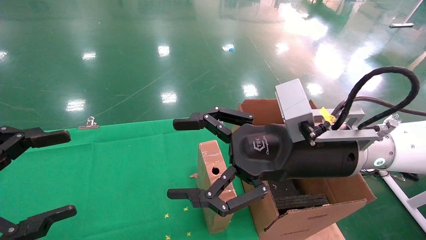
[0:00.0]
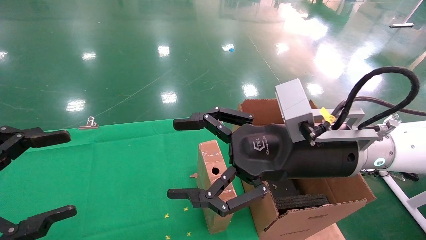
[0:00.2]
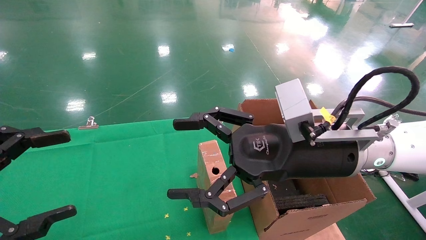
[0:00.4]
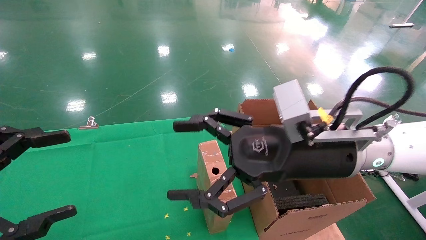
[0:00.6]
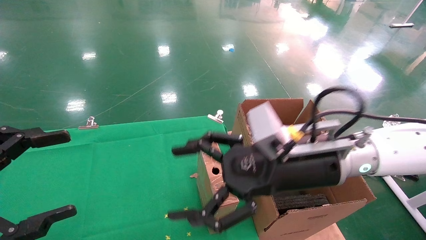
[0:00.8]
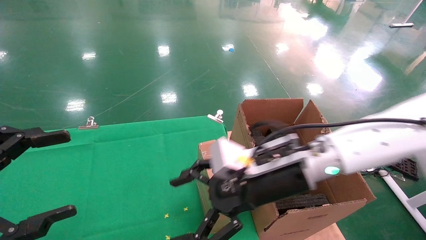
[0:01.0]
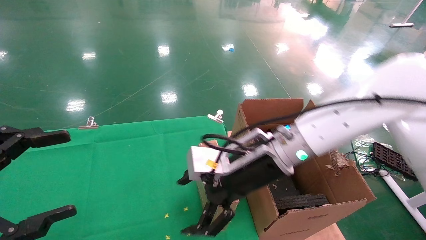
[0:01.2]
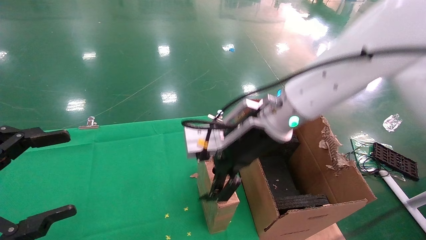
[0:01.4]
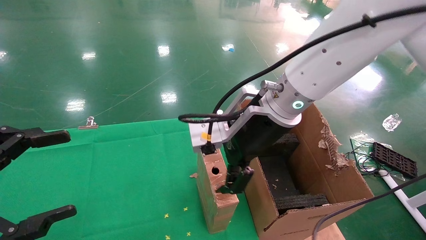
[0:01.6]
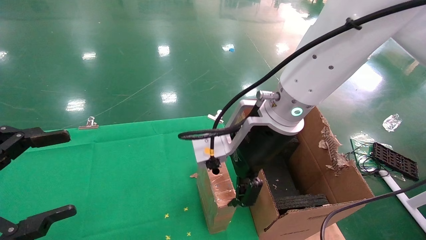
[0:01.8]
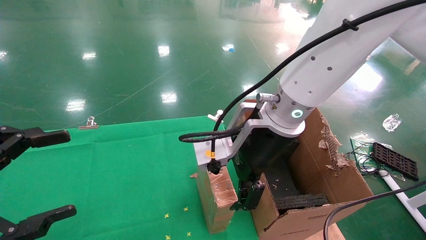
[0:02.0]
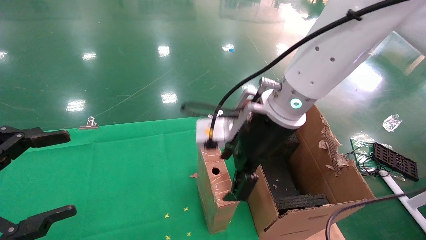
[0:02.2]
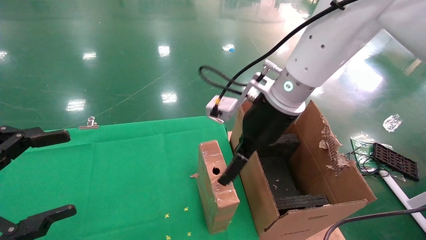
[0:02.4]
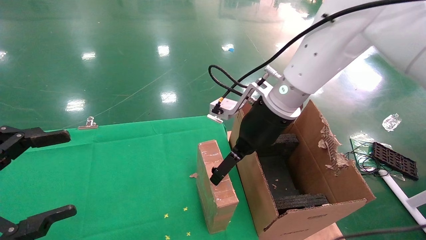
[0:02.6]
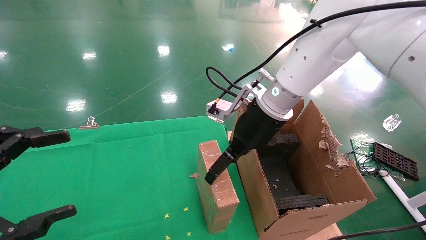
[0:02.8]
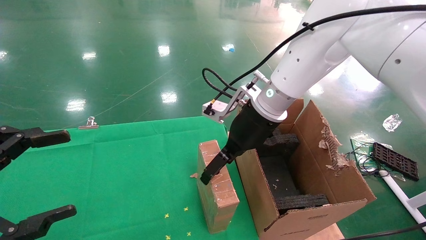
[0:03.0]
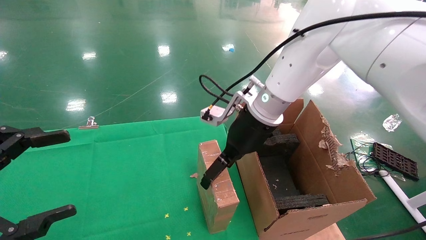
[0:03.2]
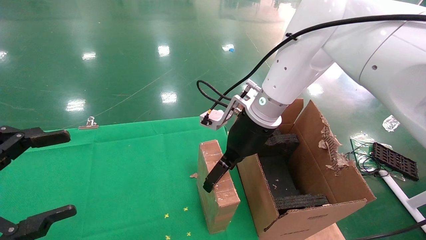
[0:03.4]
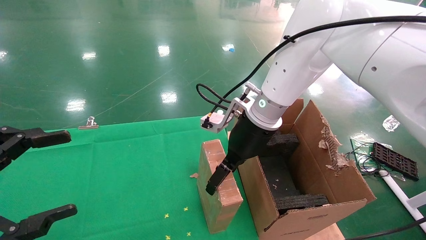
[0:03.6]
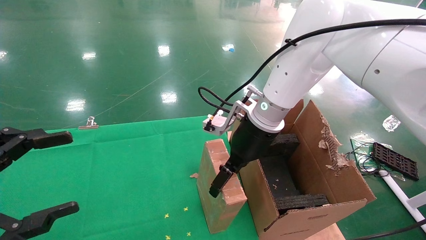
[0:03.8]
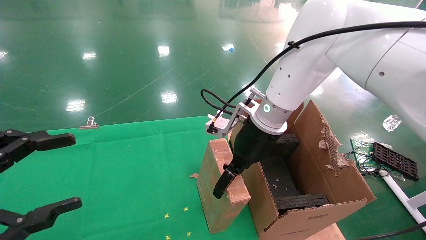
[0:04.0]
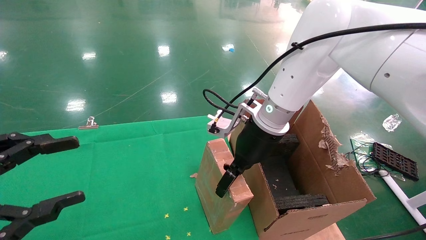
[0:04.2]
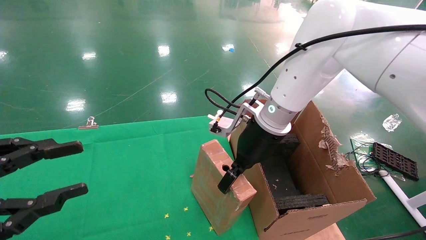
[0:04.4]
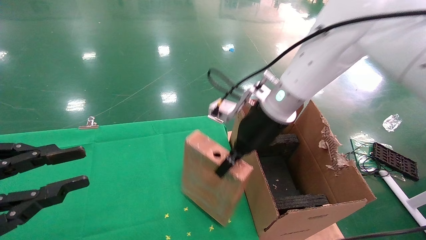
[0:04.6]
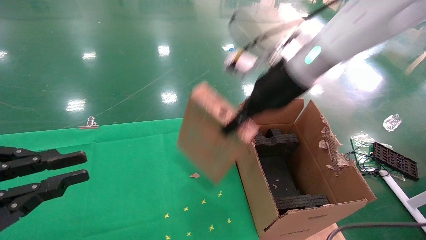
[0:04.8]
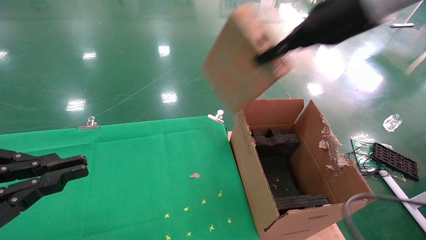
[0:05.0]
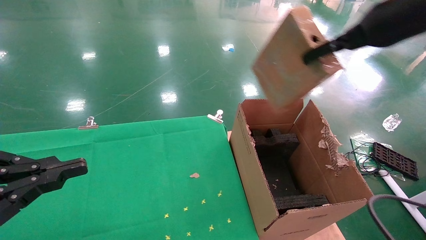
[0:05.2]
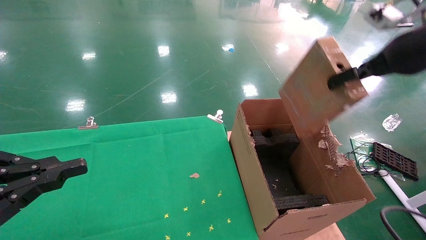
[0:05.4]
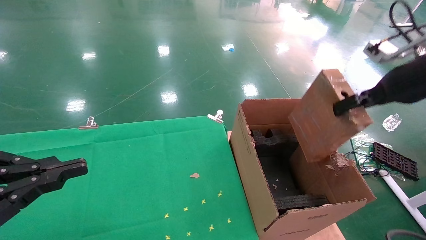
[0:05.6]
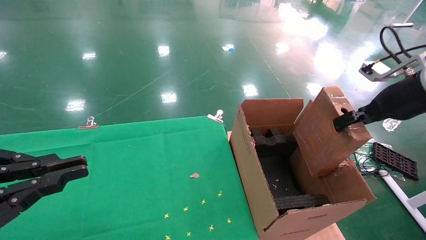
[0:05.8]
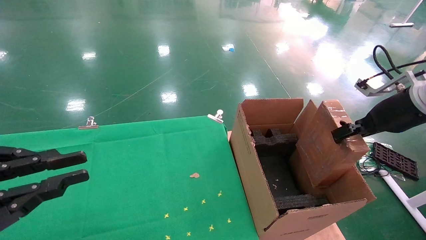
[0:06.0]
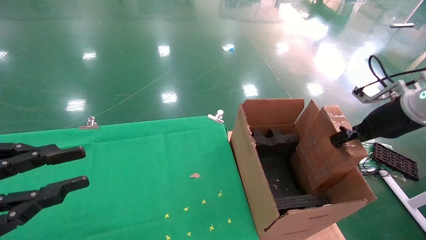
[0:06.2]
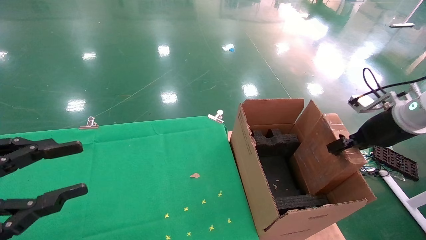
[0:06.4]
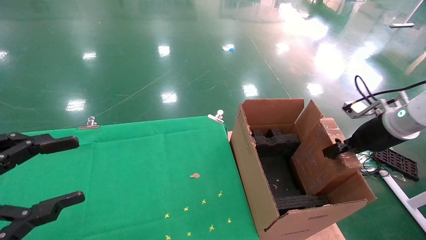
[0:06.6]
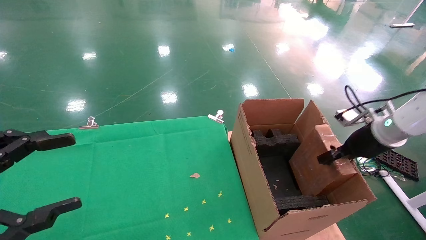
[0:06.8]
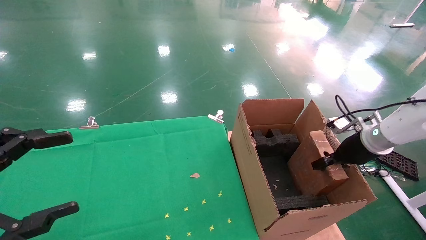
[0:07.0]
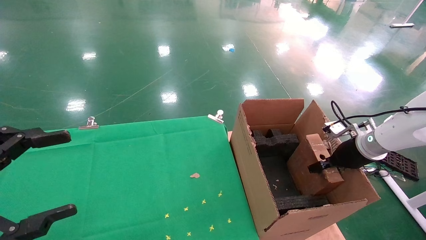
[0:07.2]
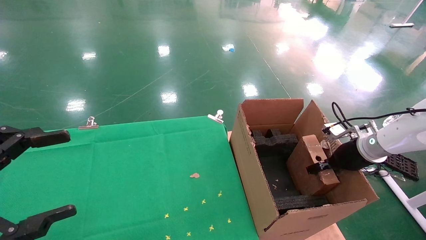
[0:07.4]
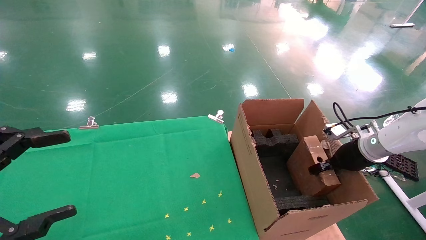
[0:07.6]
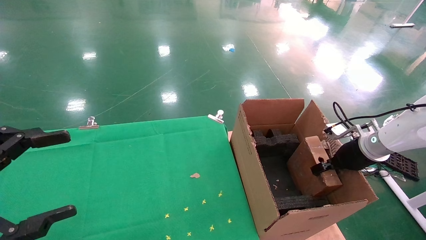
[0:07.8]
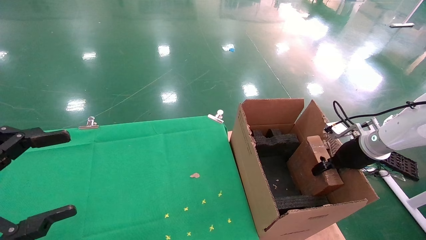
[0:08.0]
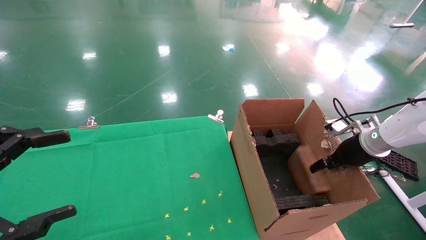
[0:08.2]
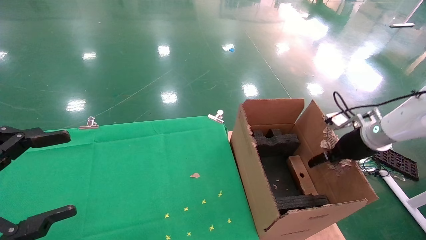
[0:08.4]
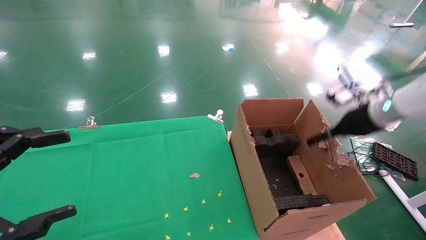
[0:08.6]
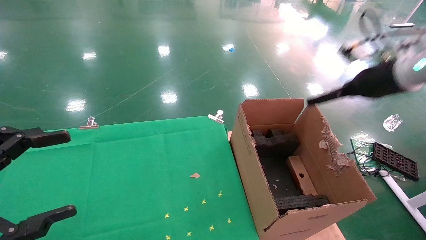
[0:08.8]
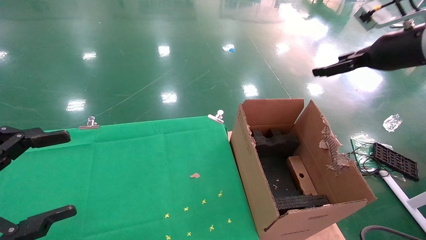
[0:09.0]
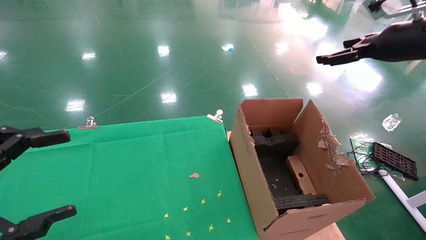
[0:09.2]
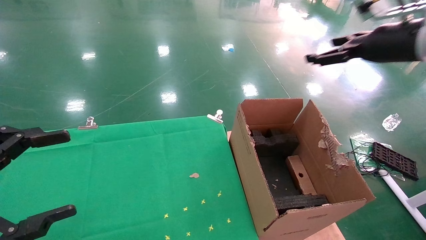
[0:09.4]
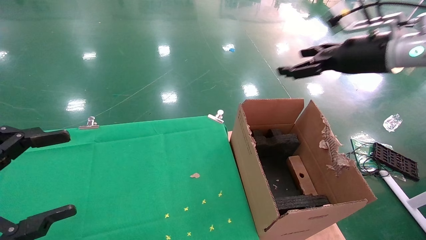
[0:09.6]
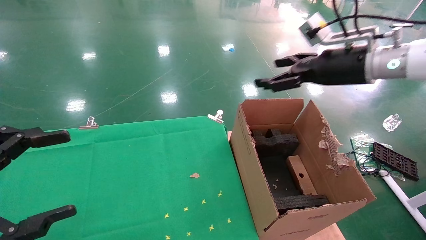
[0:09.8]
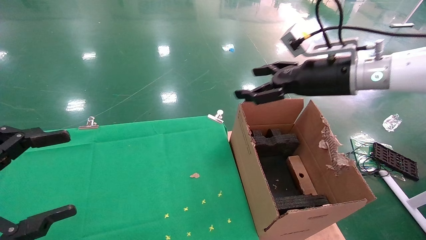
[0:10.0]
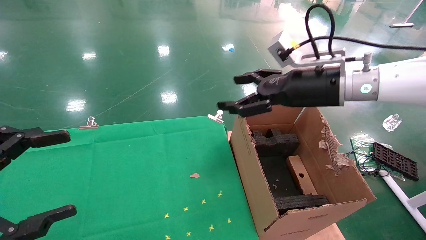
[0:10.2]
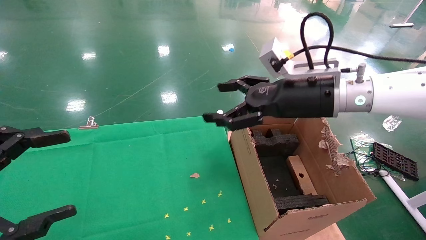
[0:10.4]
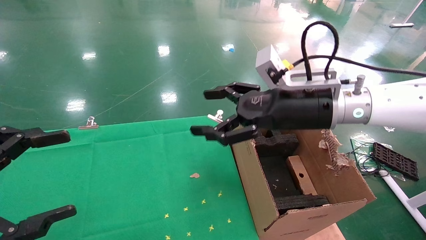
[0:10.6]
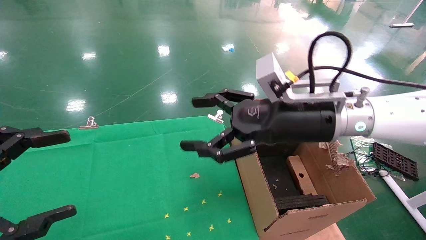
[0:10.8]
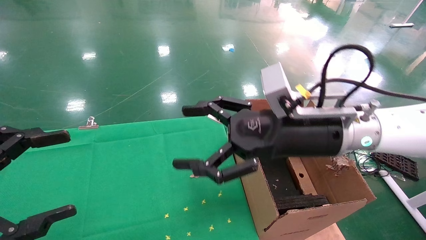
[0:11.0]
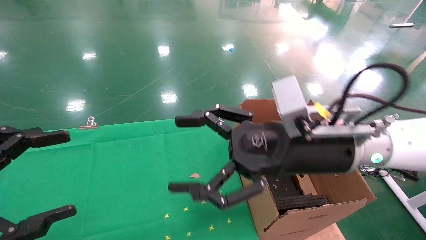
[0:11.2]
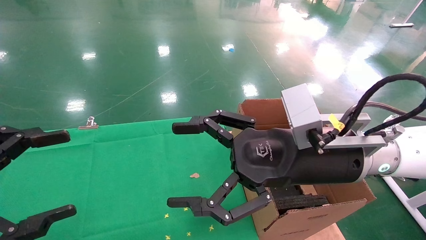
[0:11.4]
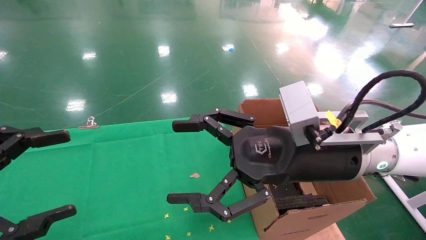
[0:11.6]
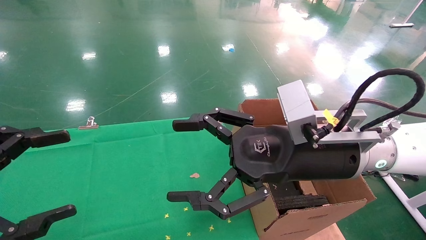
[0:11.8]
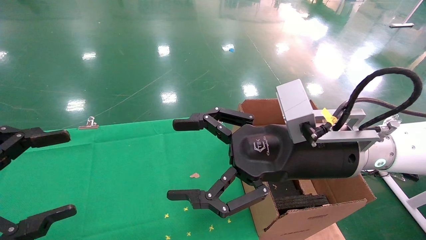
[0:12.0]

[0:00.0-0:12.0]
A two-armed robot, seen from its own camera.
Task of the whole recording: using a robotic arm to pick up a cardboard box and palace it the carton.
Step, 0:00.8 to 0:04.4: Pick up the mouse and the power cord paper box.
Step, 0:04.6 to 0:08.4: Place the mouse and the power cord paper box into the container.
0:00.0 to 0:01.6: The right gripper goes some 10 cm to the left and forward.
0:01.6 to 0:03.0: The right gripper moves forward, about 5 cm.
0:03.0 to 0:04.4: The left gripper closes up; the right gripper closes up.
0:04.4 to 0:06.0: The right gripper goes roughly 30 cm to the right, and closes up, while the left gripper closes.
0:06.0 to 0:07.6: The left gripper opens its fingers. The right gripper shifts approximately 15 cm downward and forward.
0:07.6 to 0:09.0: The right gripper heads upward, covering about 25 cm, and opens its fingers.
0:09.0 to 0:10.4: The right gripper heads to the left, covering roughly 20 cm.
0:10.4 to 0:12.0: The right gripper shifts roughly 10 cm backward and to the left.

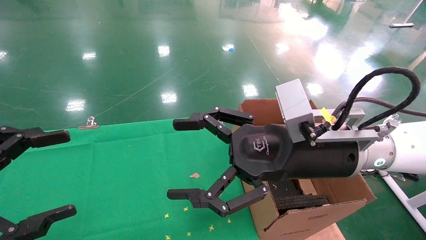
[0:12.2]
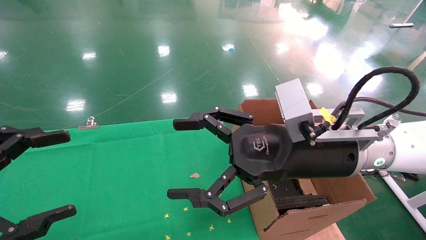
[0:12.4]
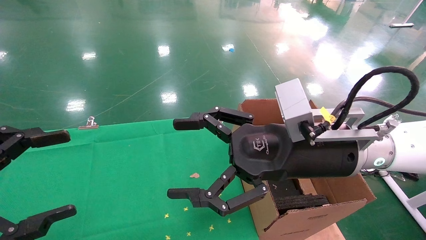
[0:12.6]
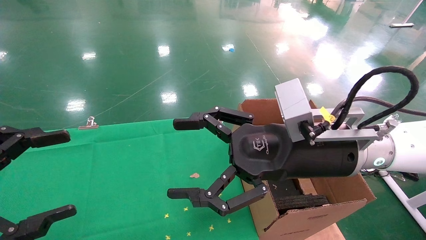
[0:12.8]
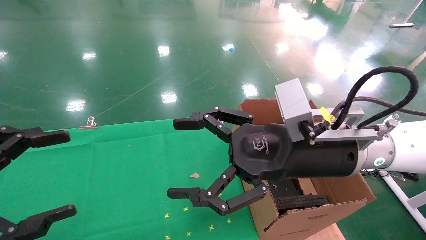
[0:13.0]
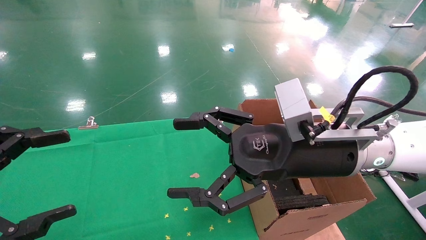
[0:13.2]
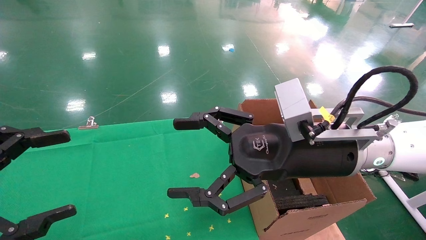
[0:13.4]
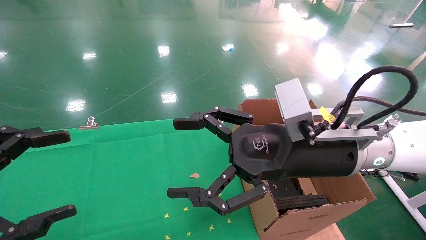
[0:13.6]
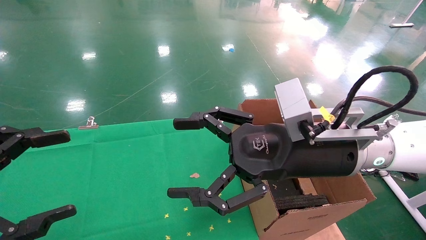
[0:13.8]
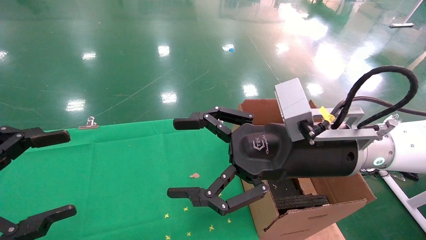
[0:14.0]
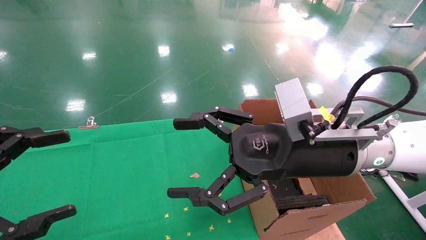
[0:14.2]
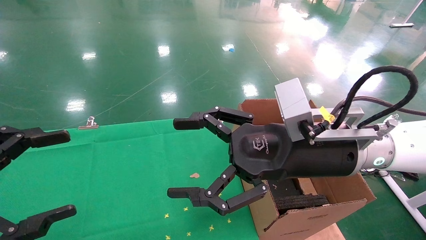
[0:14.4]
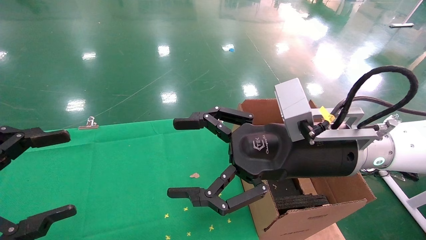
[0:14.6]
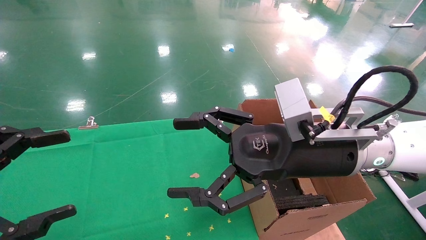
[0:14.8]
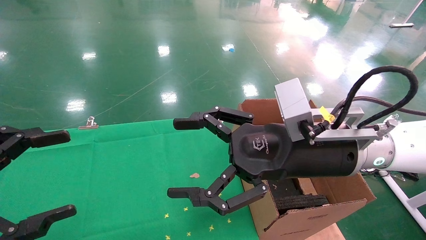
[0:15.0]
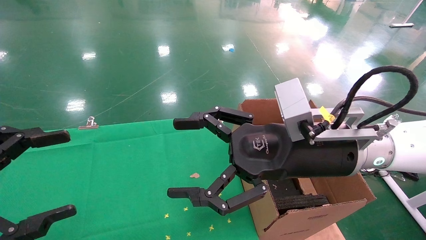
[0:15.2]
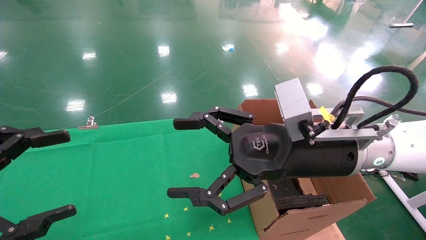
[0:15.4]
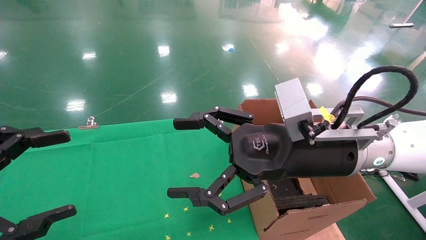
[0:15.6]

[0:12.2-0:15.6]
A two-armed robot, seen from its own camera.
Task of the whole recording: using a robotic arm to pick up a cardboard box and palace it the carton.
0:12.2 to 0:15.6: Both grippers stay put.
